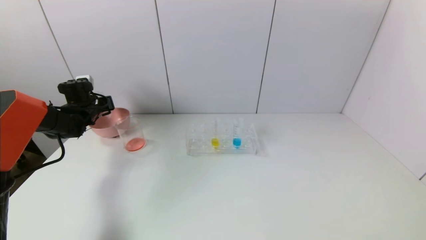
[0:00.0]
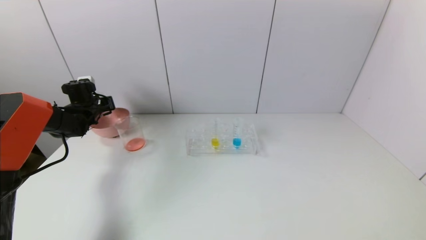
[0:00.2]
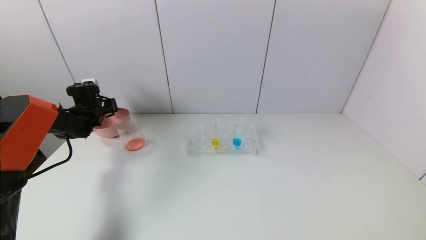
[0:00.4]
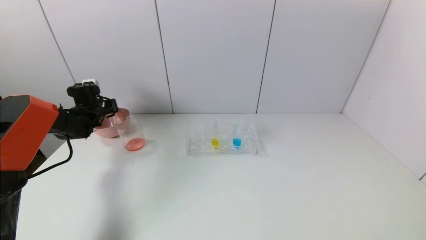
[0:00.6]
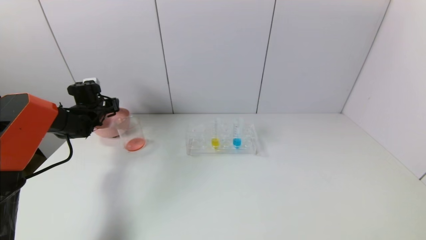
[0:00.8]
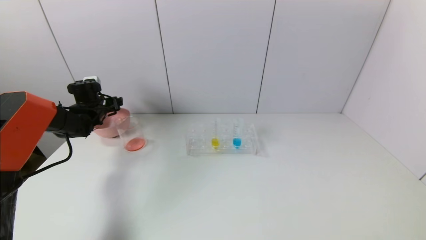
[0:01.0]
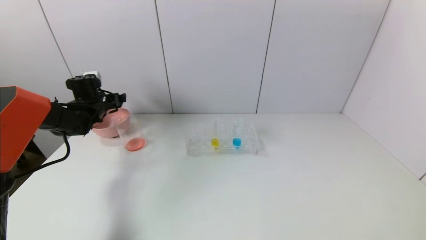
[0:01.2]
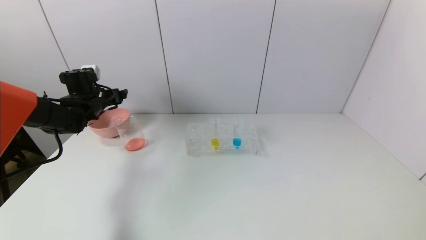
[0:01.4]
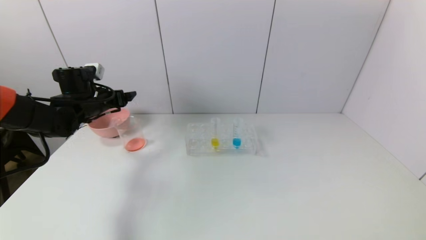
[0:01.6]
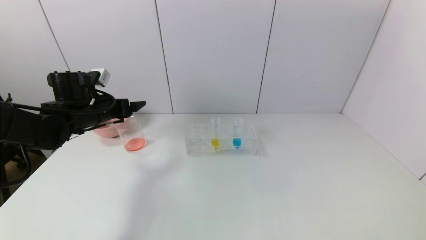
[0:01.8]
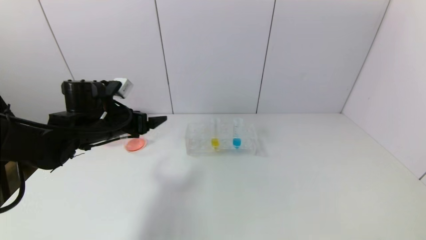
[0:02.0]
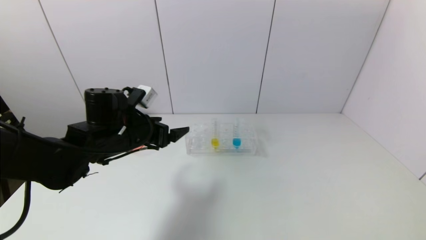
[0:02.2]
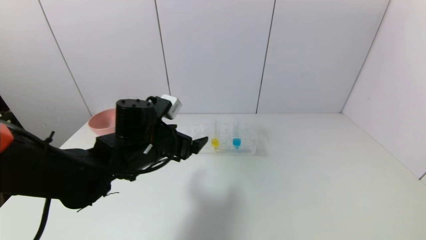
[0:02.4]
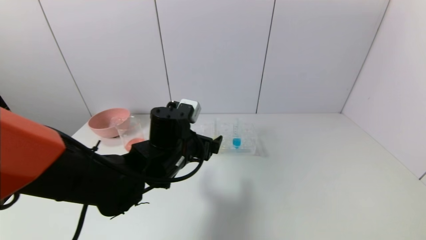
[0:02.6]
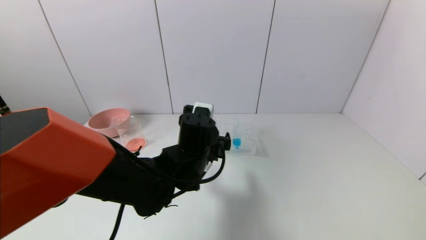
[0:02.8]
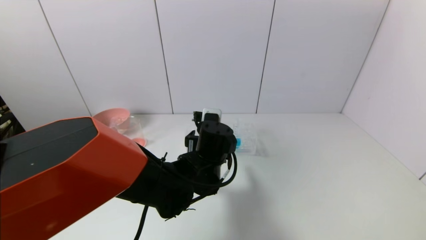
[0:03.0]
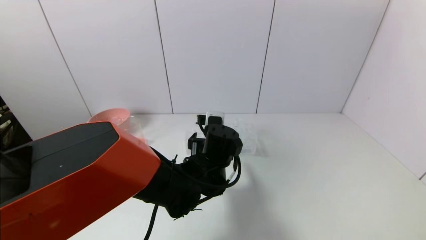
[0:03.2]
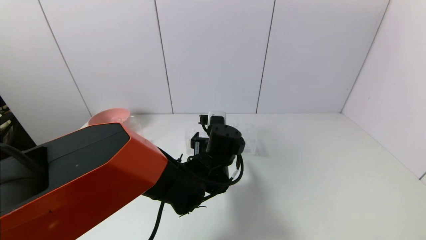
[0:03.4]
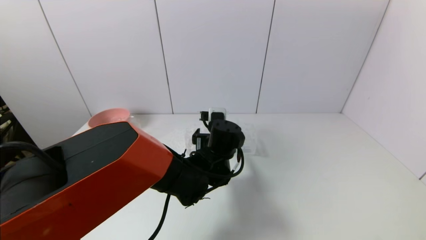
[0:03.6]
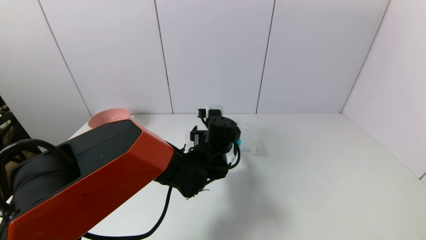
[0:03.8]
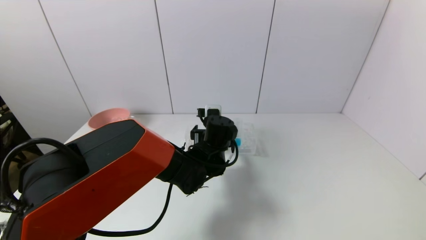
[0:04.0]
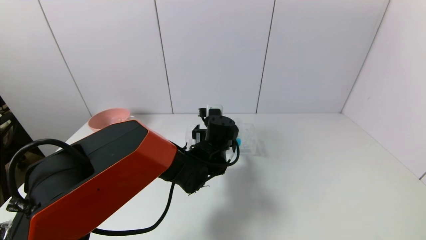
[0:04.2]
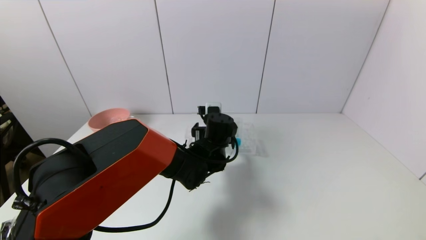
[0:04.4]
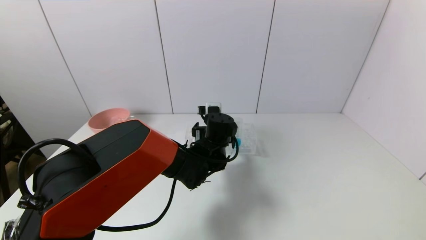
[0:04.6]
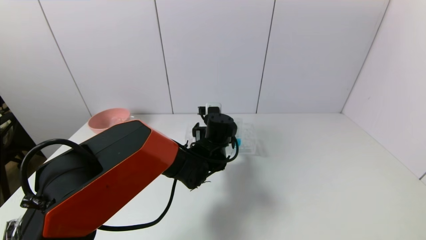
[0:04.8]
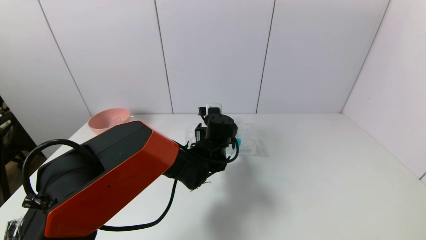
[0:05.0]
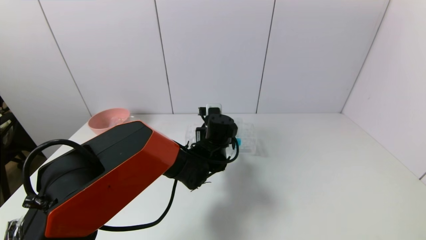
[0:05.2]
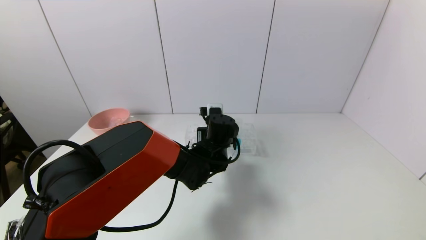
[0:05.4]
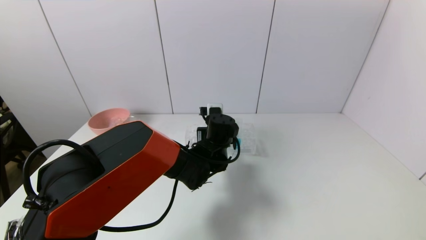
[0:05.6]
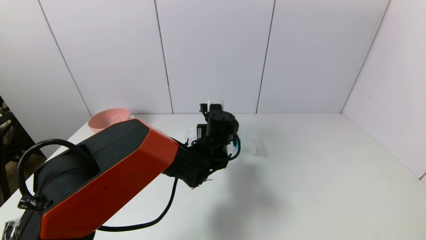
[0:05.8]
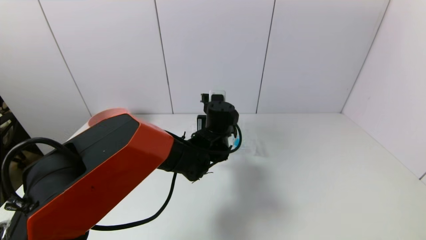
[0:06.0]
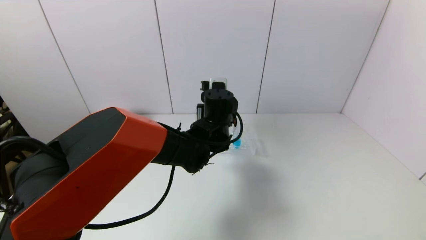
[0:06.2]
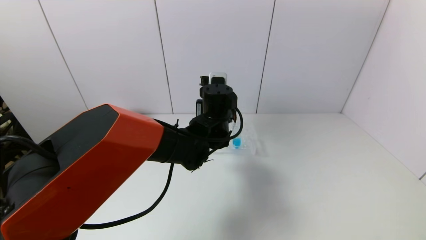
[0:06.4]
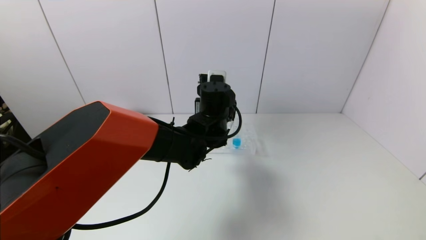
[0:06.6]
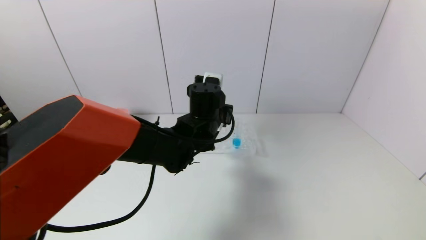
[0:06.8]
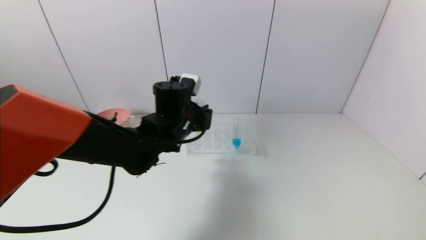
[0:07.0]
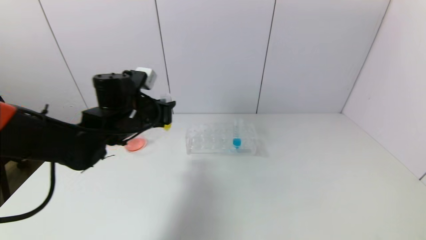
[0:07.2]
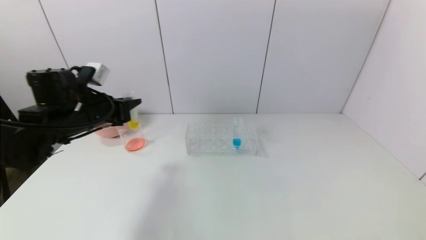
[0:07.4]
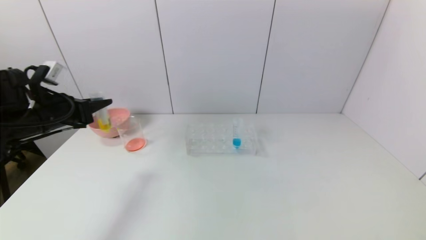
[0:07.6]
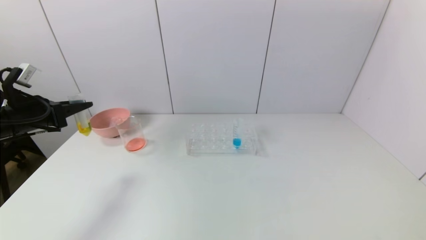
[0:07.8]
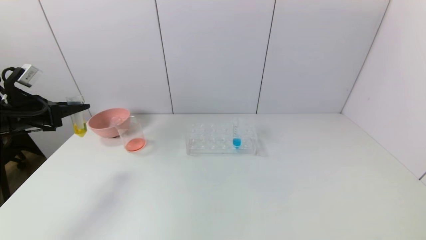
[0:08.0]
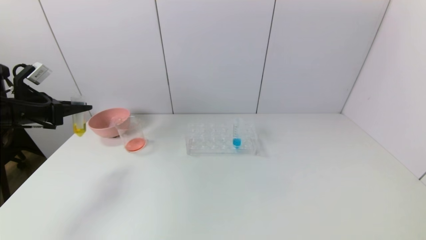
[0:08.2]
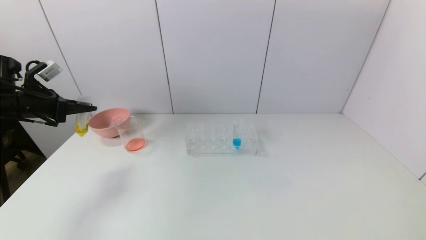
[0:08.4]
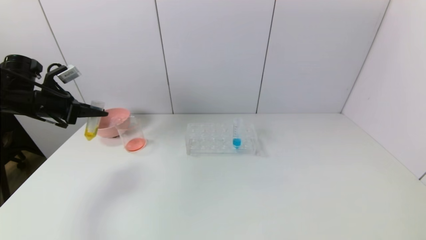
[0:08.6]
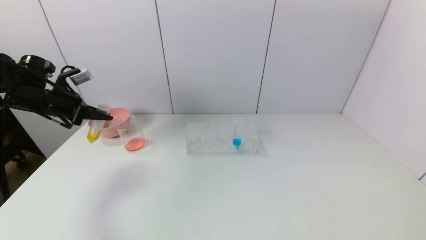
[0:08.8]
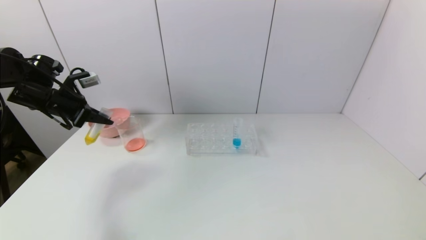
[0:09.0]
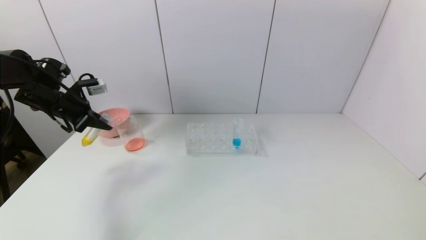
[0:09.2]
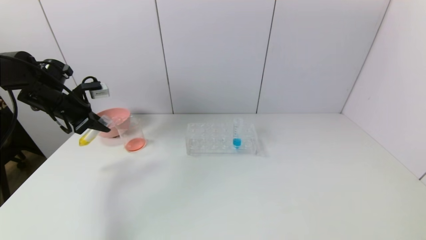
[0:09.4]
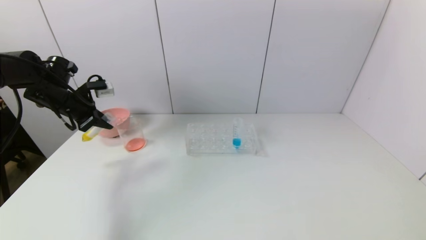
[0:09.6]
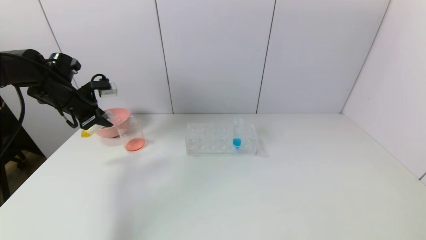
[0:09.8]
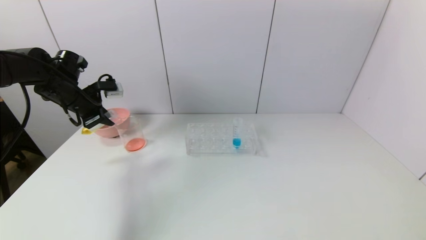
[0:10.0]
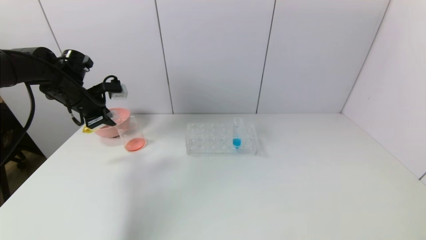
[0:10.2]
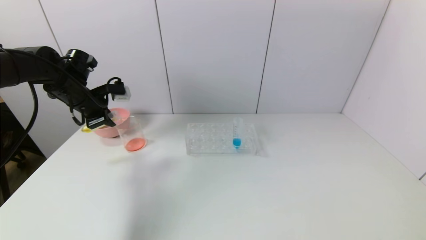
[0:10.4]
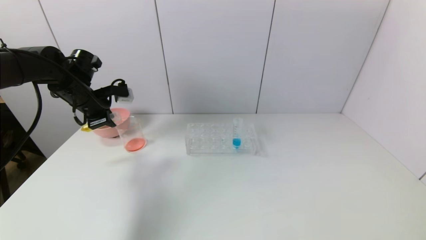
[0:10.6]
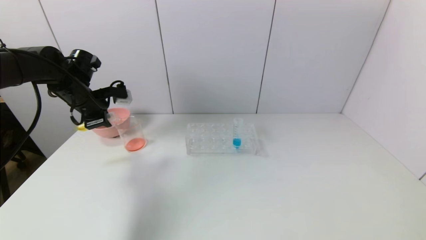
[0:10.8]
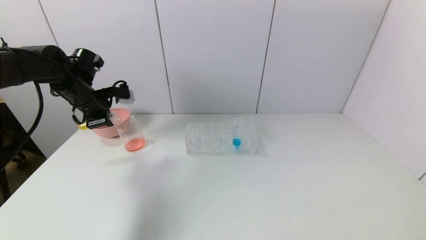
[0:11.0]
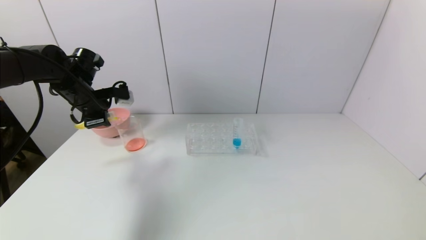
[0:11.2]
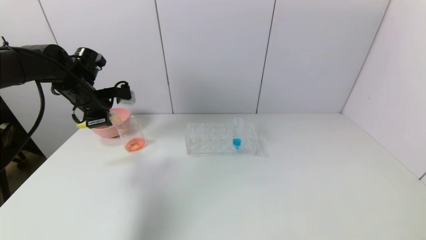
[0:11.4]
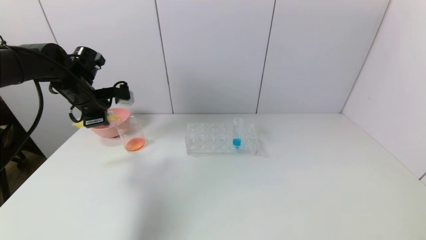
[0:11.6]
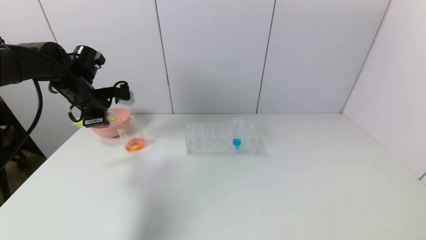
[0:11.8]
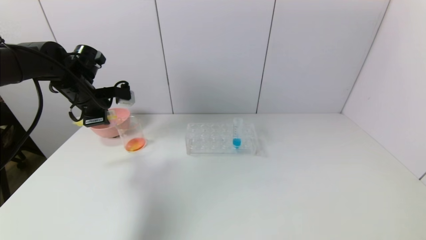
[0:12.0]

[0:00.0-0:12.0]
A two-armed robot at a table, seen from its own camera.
Task of the whole recording: pick up the test tube with yellow pigment and the test tube with red pigment by grippers and pour them into the beaker.
Step, 0:01.0 to 0:05.6: Grasp the yellow reagent with the left gripper.
0:00.0 to 0:01.6: The left gripper moves backward, to the right and upward, some 10 cm, and opens its fingers.
0:01.6 to 0:03.0: The left gripper is displaced to the right by roughly 30 cm.
0:03.0 to 0:04.4: The left gripper moves forward, approximately 5 cm.
0:04.4 to 0:06.0: The left gripper closes its fingers.
0:06.0 to 0:07.6: The left gripper shifts roughly 35 cm to the left.
0:07.6 to 0:09.0: The left gripper goes some 10 cm forward.
0:09.0 to 0:10.4: The left gripper heads to the right, covering roughly 5 cm.
0:10.4 to 0:12.0: The grippers make only small movements.

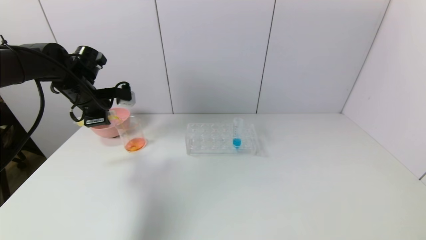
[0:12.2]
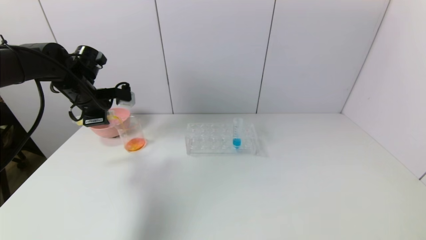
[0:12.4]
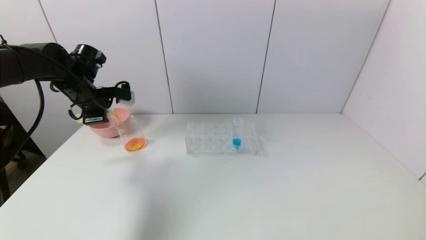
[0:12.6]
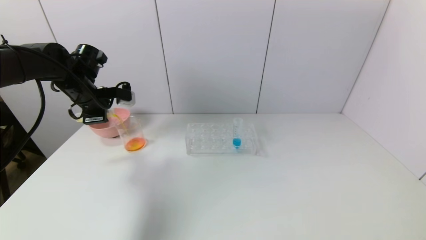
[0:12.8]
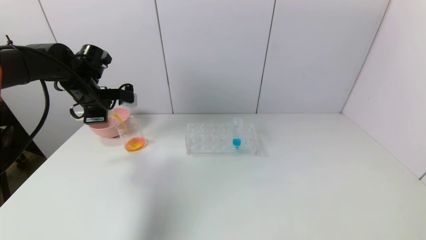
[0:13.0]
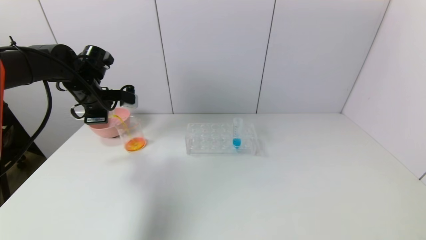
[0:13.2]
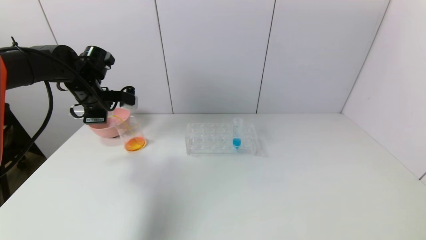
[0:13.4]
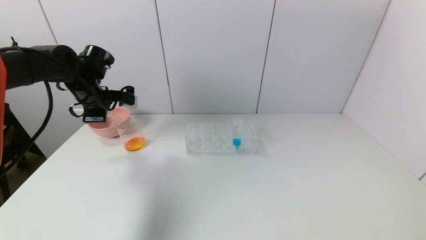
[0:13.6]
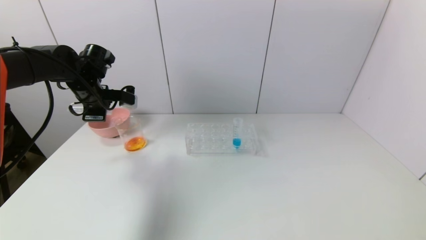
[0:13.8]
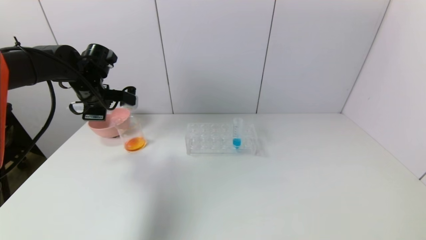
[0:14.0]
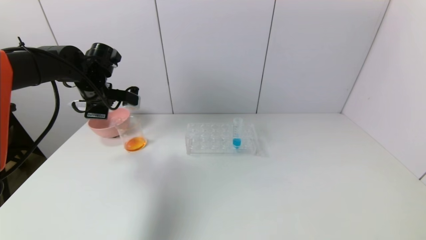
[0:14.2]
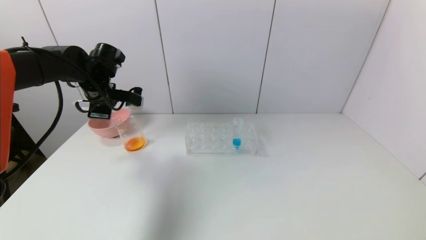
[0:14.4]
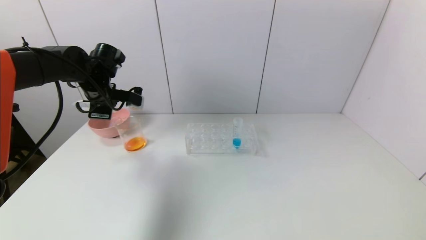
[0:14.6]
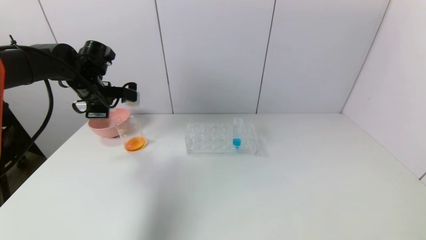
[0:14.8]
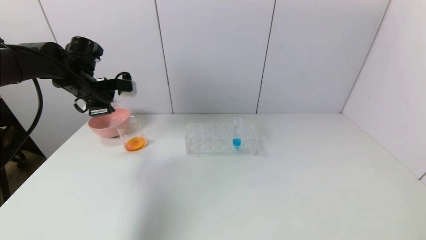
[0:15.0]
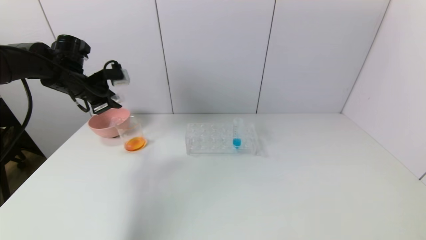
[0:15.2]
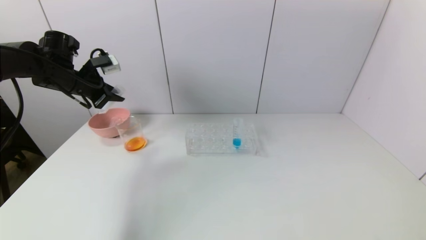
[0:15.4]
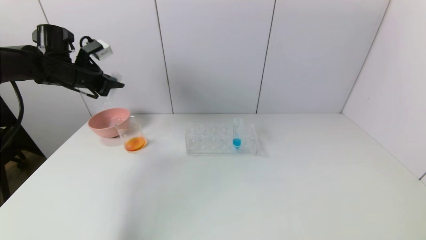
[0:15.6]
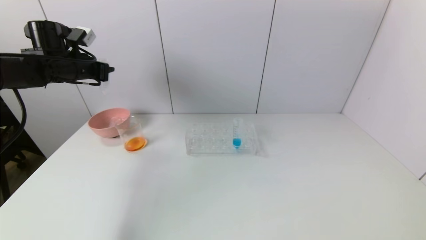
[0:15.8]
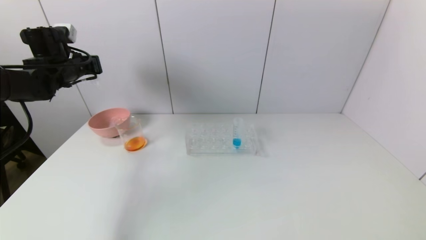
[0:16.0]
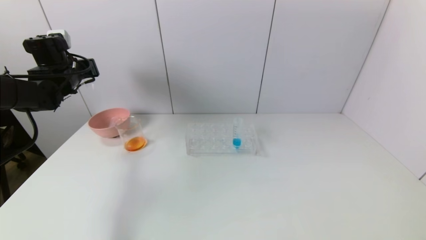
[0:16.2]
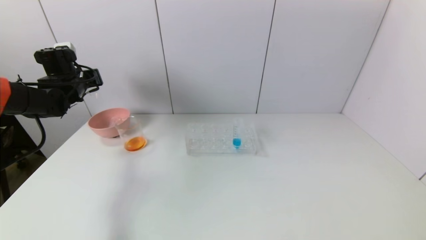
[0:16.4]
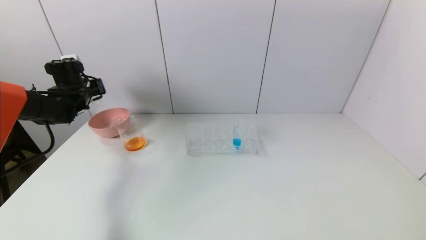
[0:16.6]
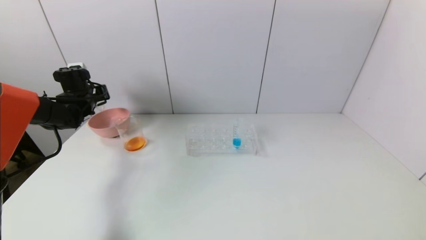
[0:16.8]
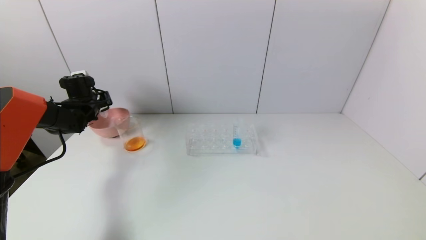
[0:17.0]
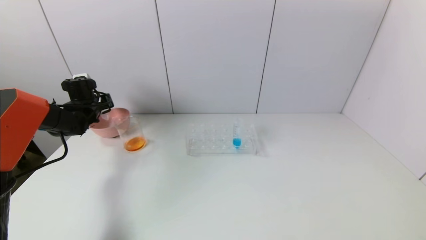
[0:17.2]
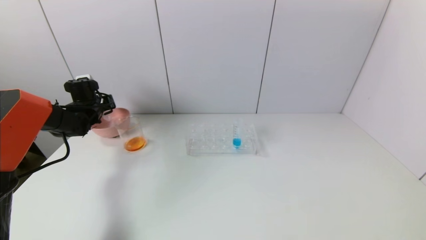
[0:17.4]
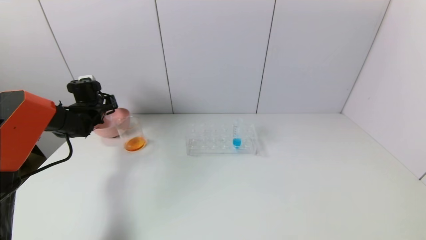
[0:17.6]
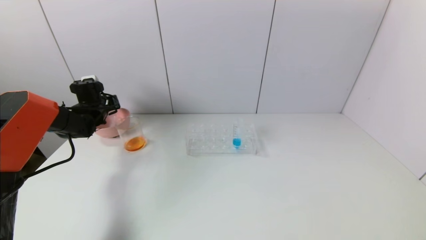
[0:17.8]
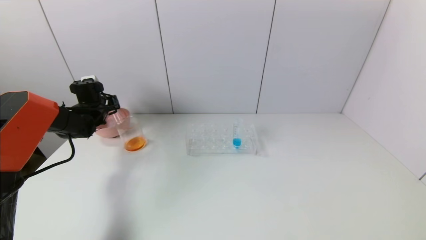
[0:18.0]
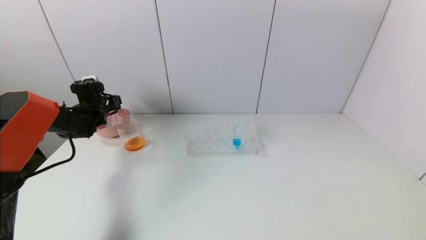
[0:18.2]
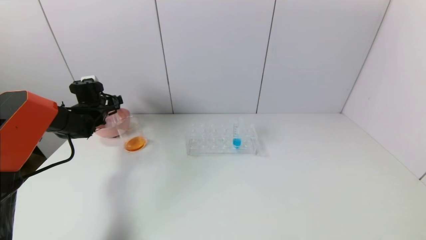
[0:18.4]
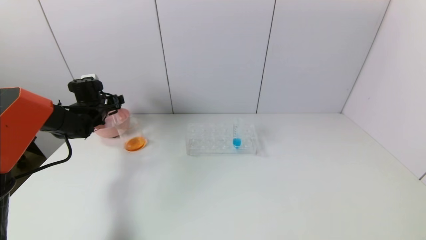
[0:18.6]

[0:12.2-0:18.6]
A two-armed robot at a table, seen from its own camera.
Task of the whole recording: pick up the test tube with yellow pigment and the test tube with red pigment by grippers and pour them into the beaker.
Step, 0:12.2 to 0:14.6: Pour the yellow reagent into the graduated cylinder with the left gripper.
Step, 0:14.8 to 0:18.0: Place the test tube into the pink bowl with the left gripper.
0:12.2 to 0:13.8: The grippers make only small movements.
0:13.8 to 0:15.4: The left gripper moves roughly 5 cm.
0:15.4 to 0:17.0: The left gripper moves downward and forward, roughly 15 cm.
0:17.0 to 0:18.6: The left gripper opens.
